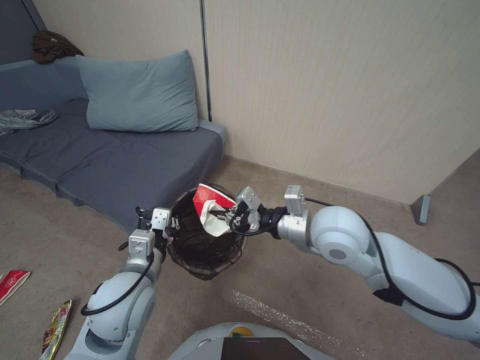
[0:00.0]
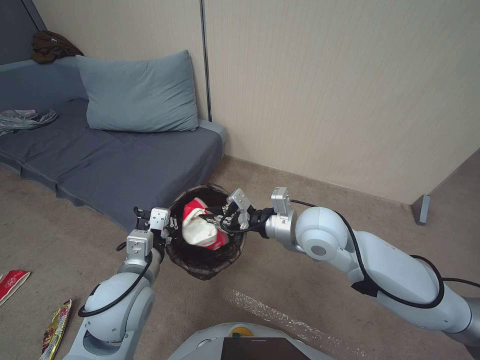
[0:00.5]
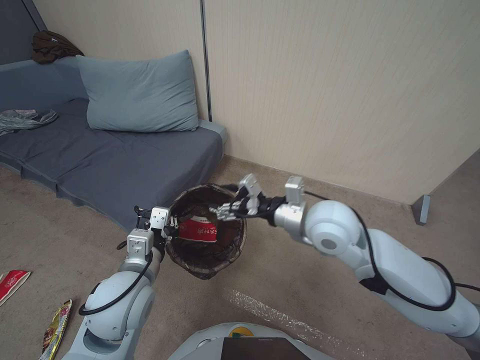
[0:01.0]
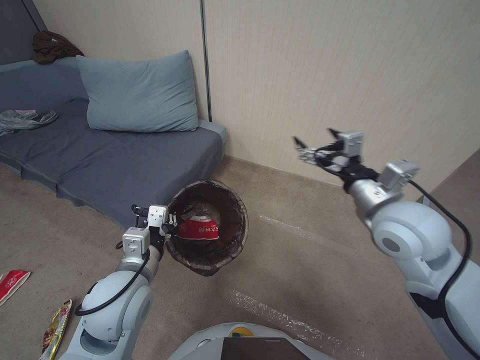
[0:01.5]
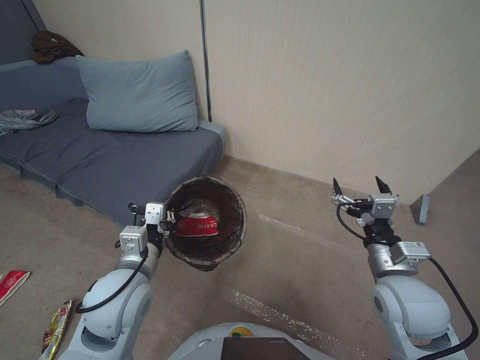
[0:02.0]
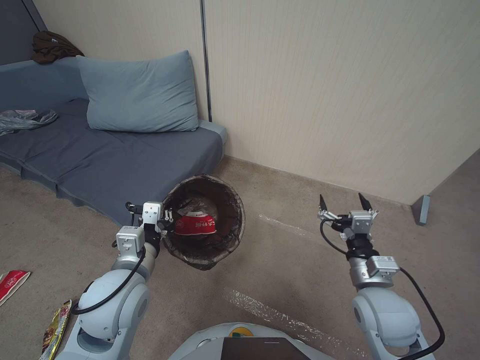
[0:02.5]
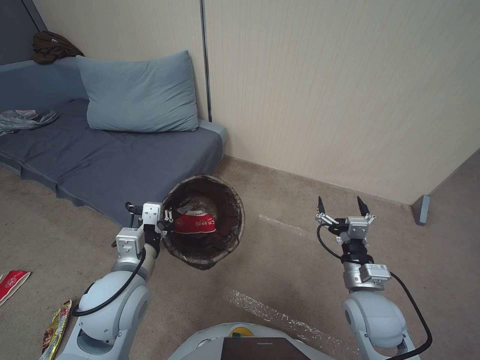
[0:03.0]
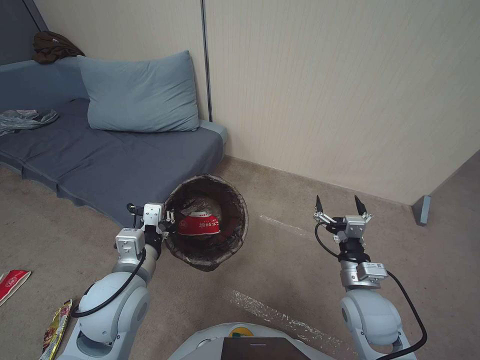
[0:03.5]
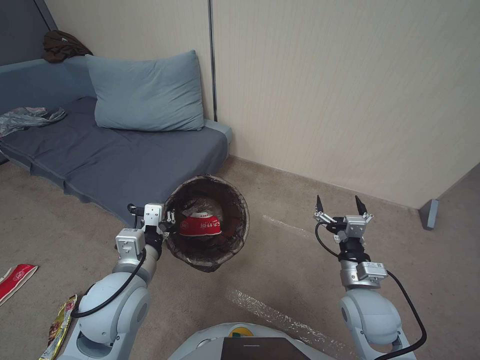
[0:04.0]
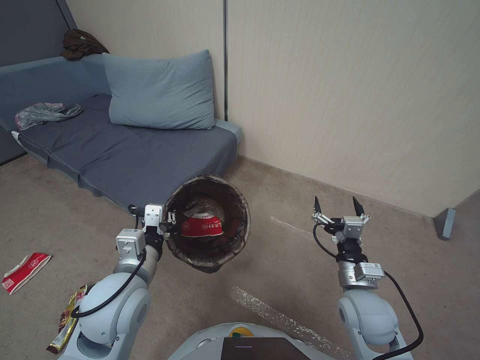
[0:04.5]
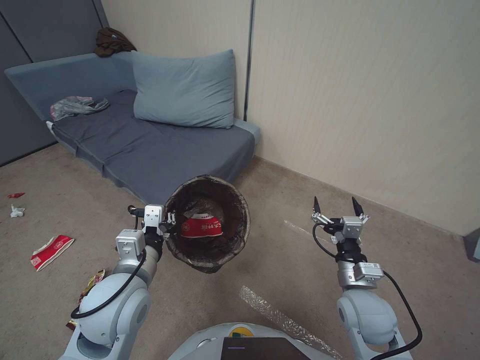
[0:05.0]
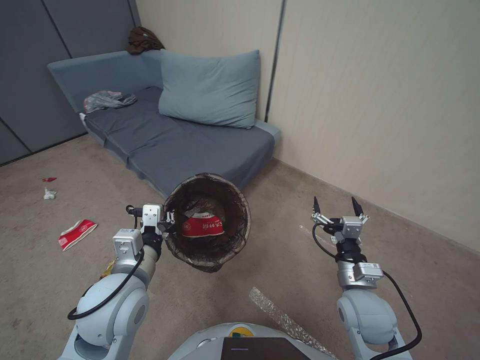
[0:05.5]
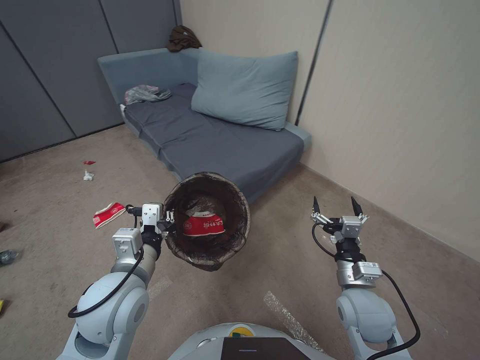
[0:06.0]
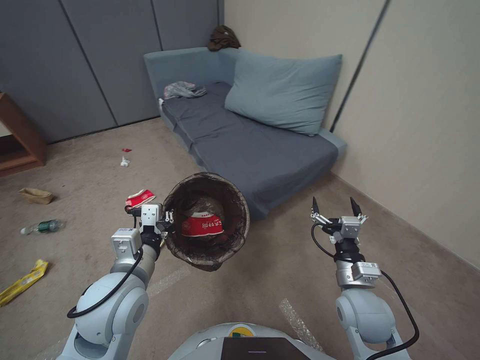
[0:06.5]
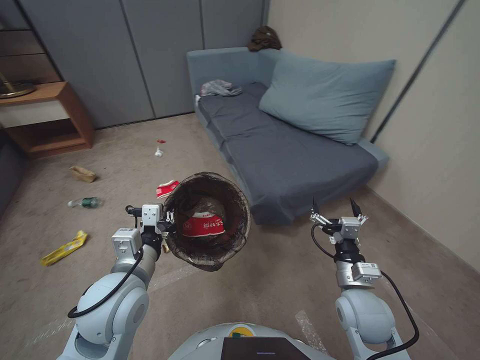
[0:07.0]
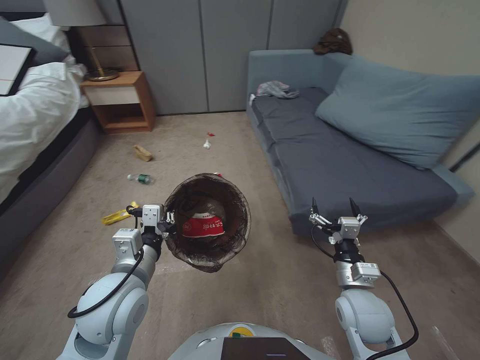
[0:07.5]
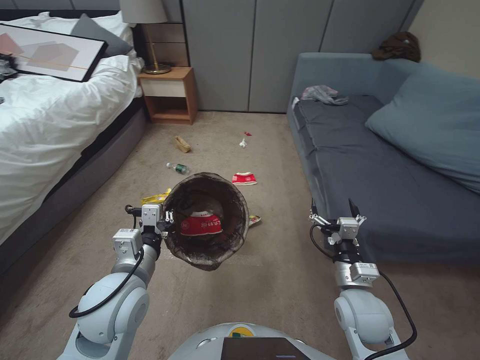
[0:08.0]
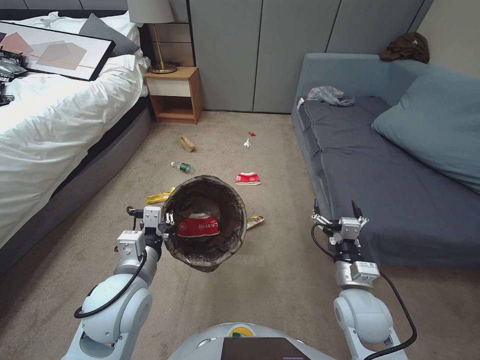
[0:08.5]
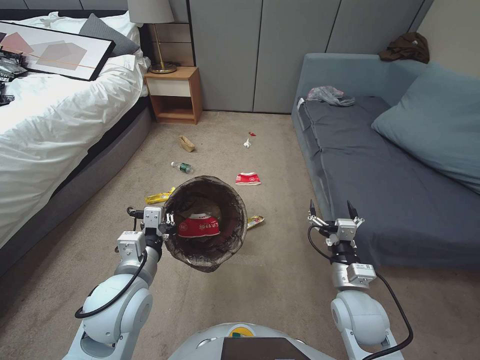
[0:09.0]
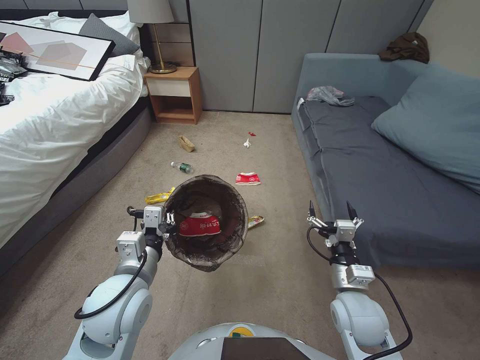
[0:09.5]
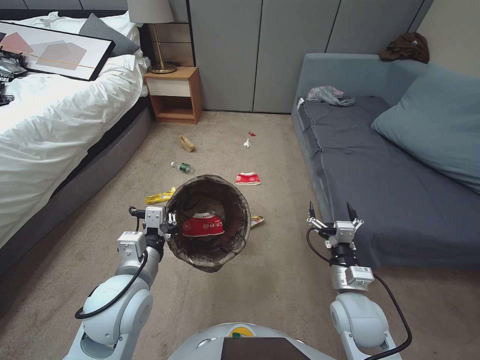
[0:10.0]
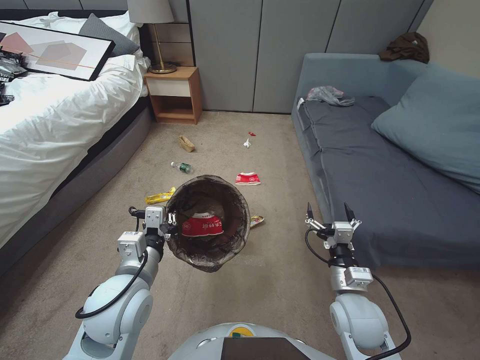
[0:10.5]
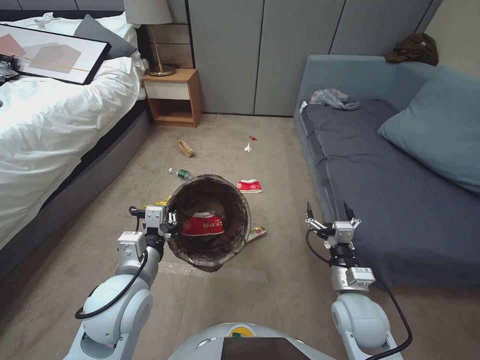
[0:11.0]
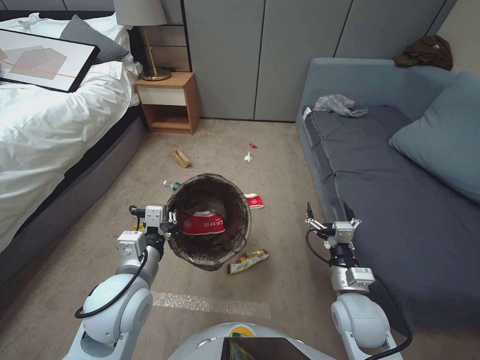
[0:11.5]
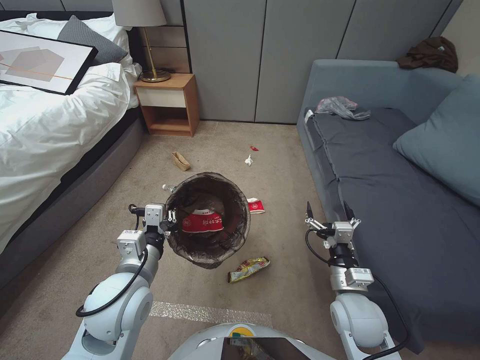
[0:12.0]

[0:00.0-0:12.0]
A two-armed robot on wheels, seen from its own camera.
Task of the whole recording: Pick up the trash bin, then pick up the garbage from the floor and place it into the trash bin.
0:00.0 to 0:02.0: The right gripper goes roughly 5 cm to the right, and opens.
0:02.0 to 0:04.0: The right gripper shifts some 20 cm downward and backward.
0:08.0 to 0:10.0: Both grippers stay about where they are.

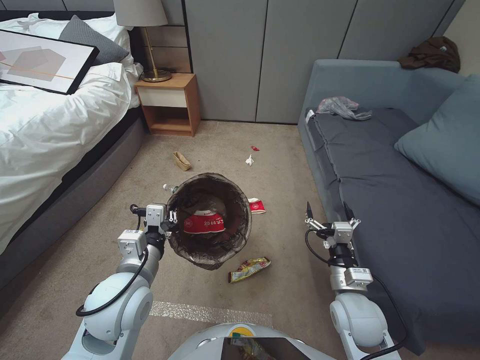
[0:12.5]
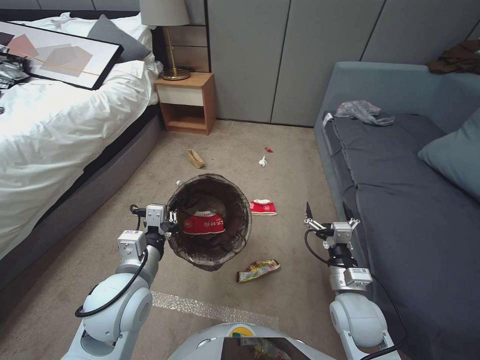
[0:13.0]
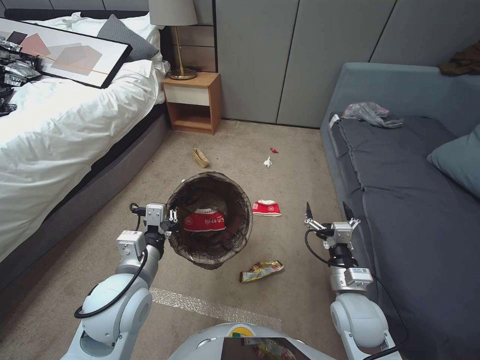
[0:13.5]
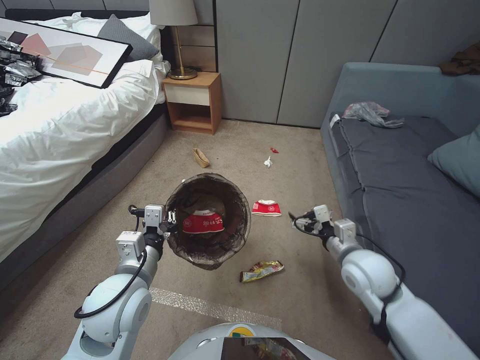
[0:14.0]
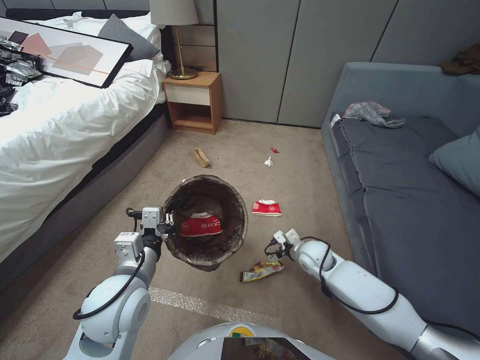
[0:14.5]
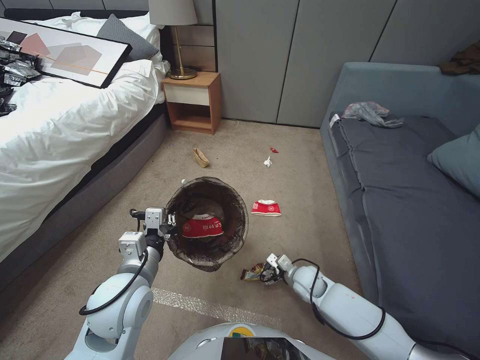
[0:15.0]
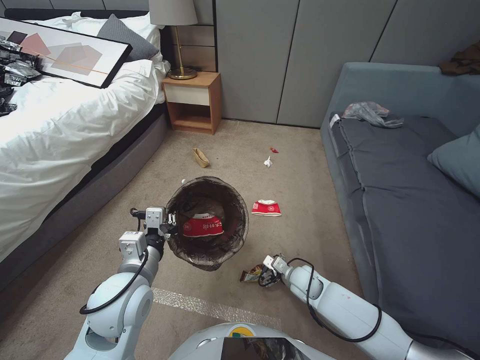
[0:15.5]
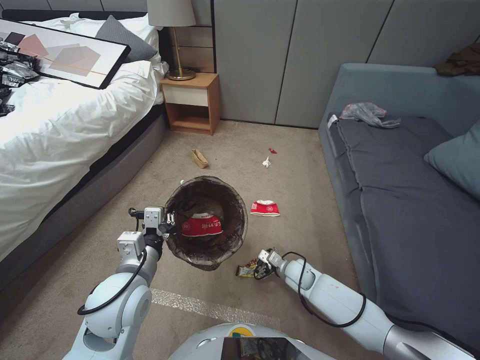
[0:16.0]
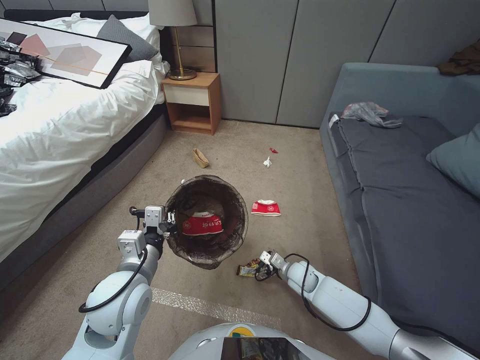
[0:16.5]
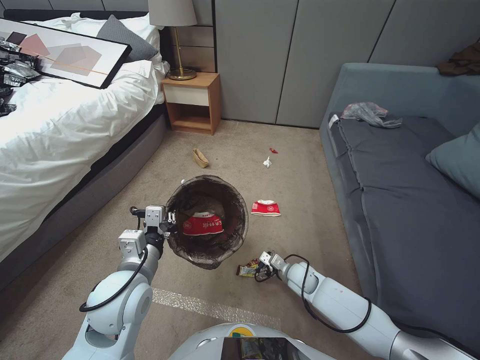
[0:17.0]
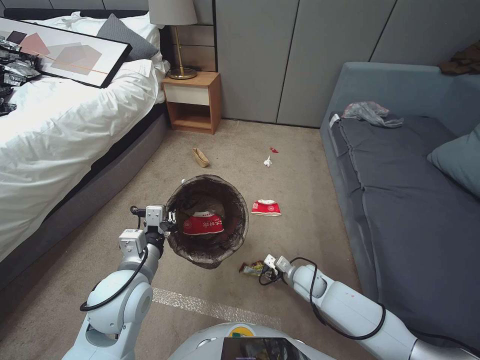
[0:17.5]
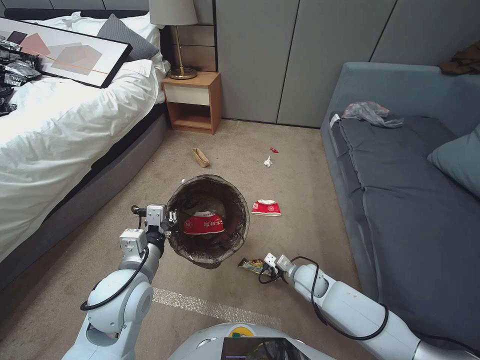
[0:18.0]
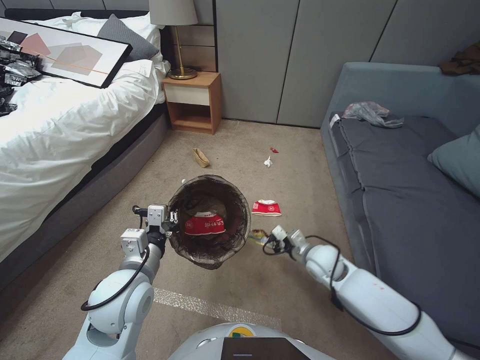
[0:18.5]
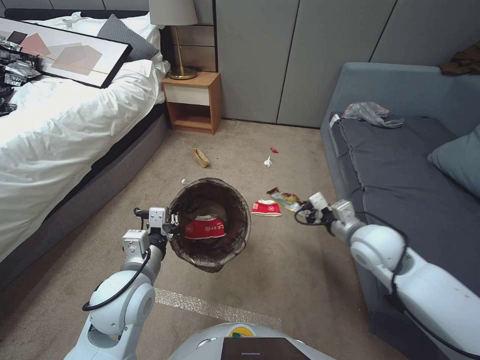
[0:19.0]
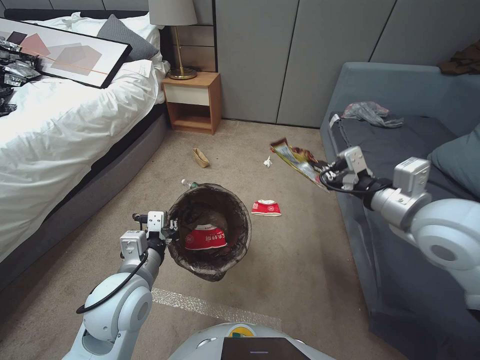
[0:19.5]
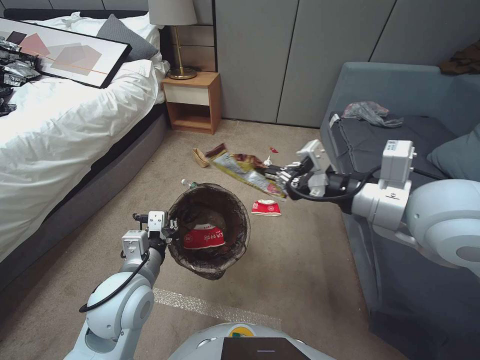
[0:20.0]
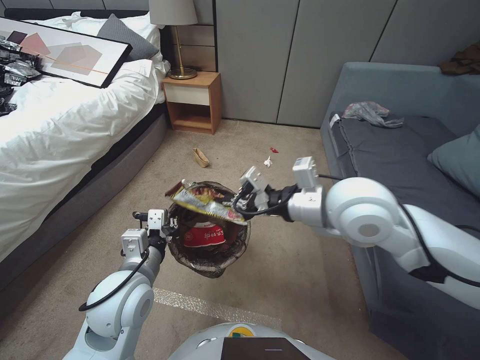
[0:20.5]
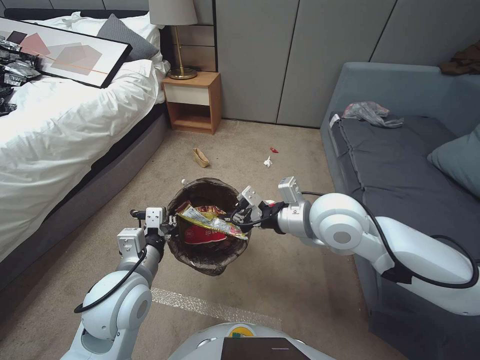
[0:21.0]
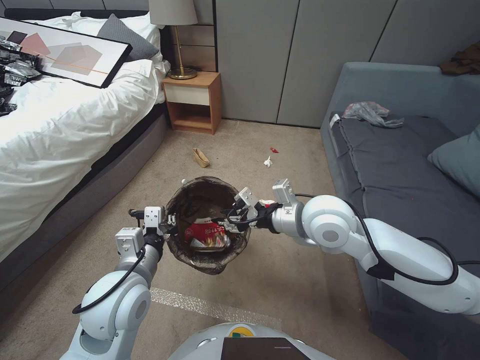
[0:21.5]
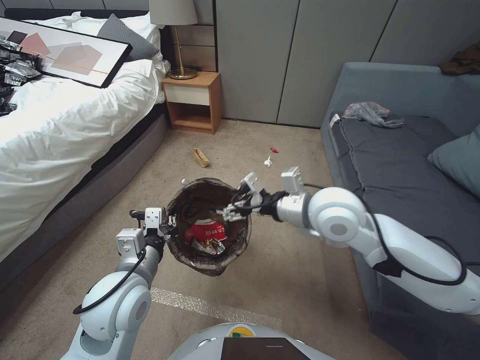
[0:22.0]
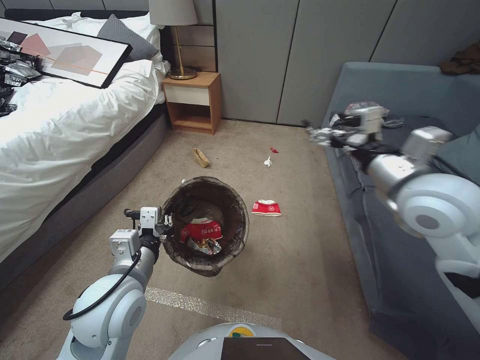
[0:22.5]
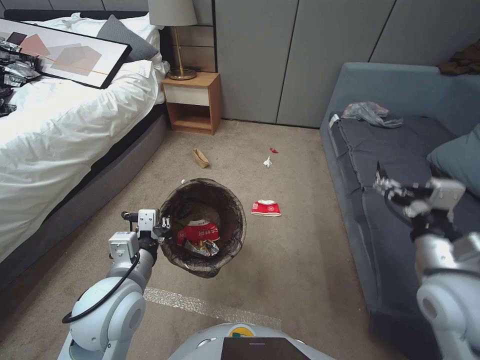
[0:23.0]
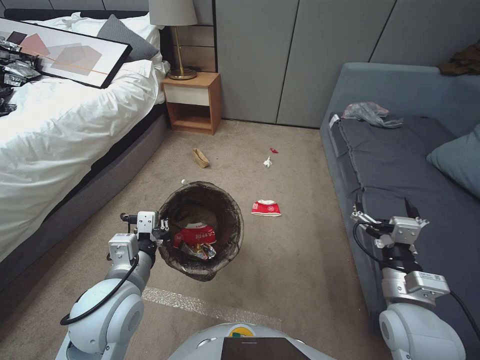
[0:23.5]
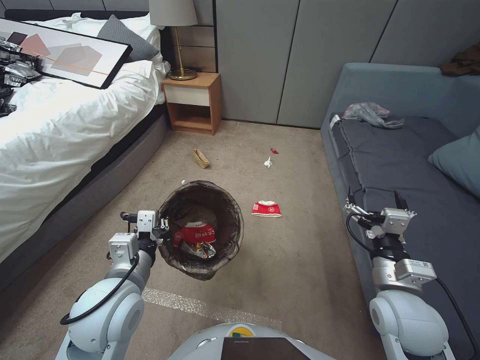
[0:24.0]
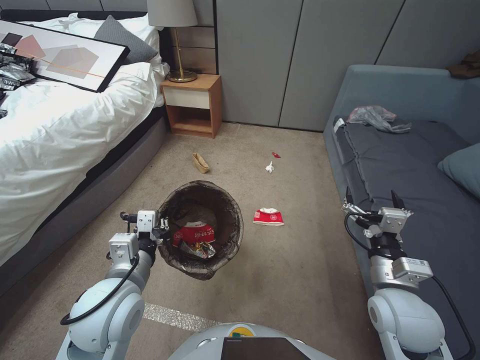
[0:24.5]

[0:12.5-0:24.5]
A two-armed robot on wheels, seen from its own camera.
Task of the whole recording: Pick up the trash bin, then pick up the garbage from the floor and place it into the trash bin.
0:12.5 to 0:14.5: The right gripper goes roughly 15 cm forward.
0:14.5 to 0:16.5: The right gripper heads downward, covering roughly 15 cm.
0:16.5 to 0:18.5: The right gripper travels upward by some 10 cm, and closes its fingers.
0:18.5 to 0:20.5: The right gripper heads upward, covering approximately 35 cm.
0:20.5 to 0:22.5: The right gripper goes roughly 10 cm to the right, and opens its fingers.
0:22.5 to 0:24.5: The right gripper travels downward and backward by roughly 25 cm.

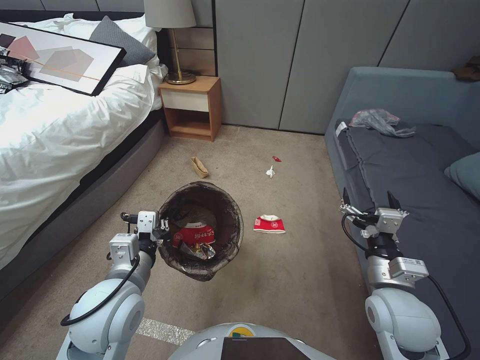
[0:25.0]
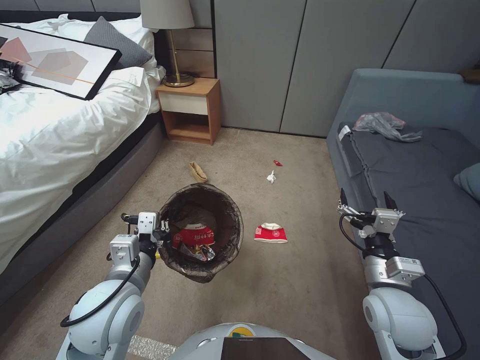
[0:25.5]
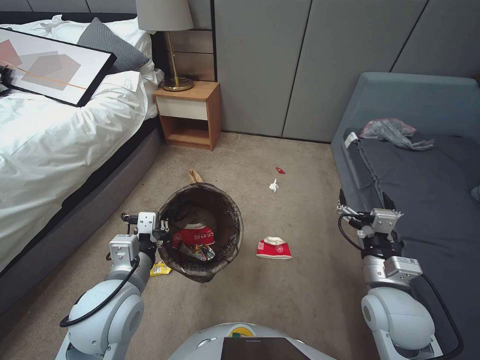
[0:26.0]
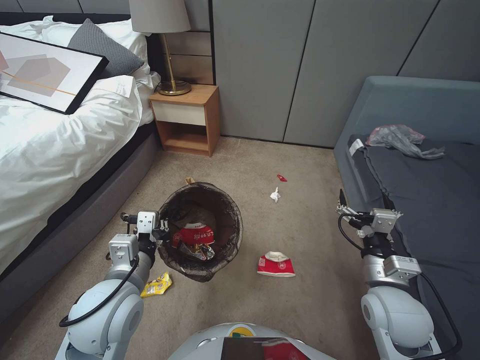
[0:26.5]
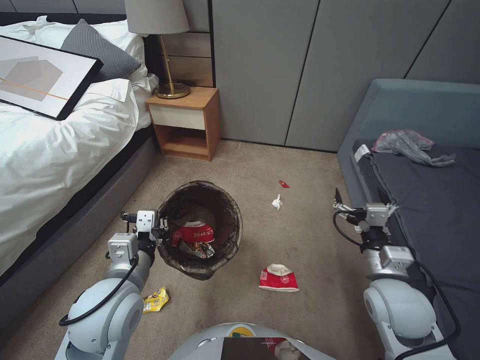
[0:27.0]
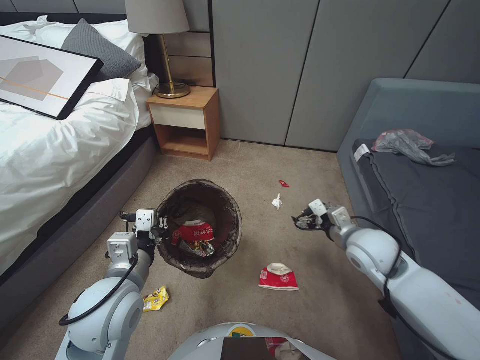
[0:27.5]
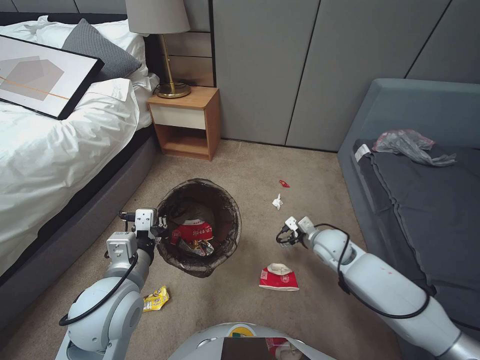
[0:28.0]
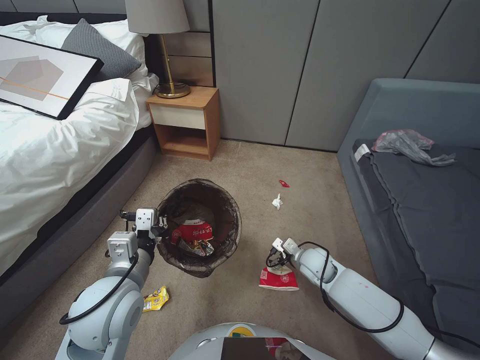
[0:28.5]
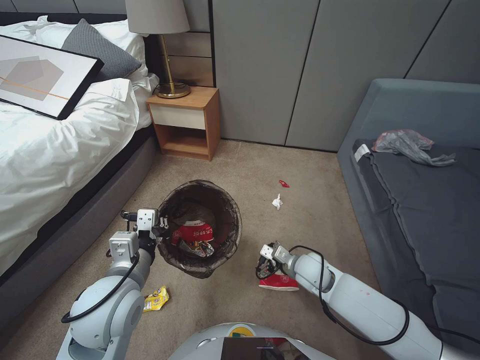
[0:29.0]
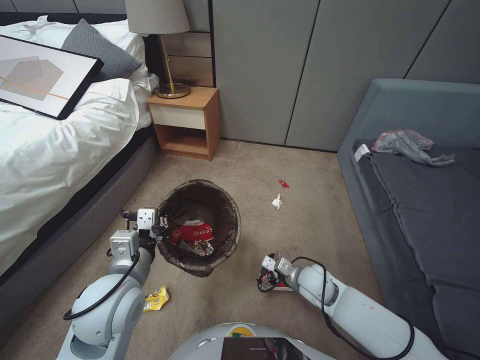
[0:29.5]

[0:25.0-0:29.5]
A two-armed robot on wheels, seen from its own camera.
Task of the whole recording: Pick up the trash bin, then pick up the garbage from the floor and place it into the trash bin.
0:27.0 to 0:29.5: The right gripper shifts roughly 20 cm downward, forward and to the left.
